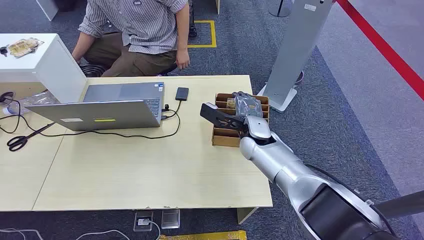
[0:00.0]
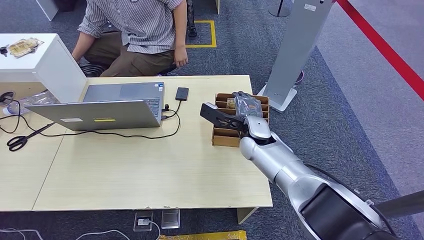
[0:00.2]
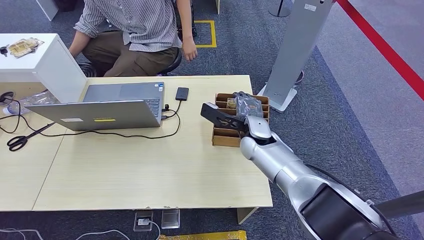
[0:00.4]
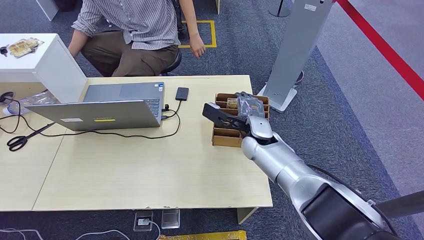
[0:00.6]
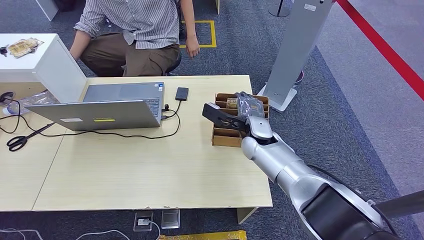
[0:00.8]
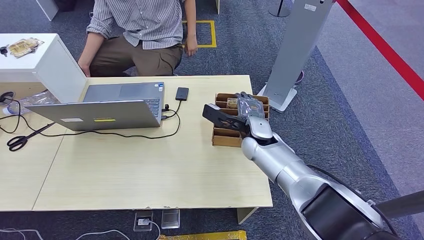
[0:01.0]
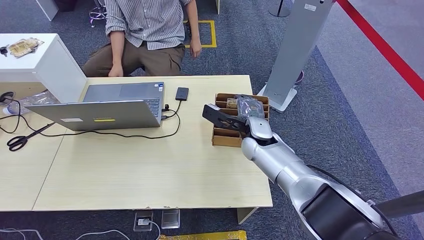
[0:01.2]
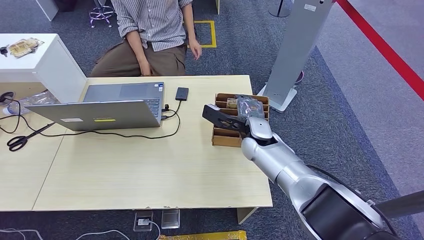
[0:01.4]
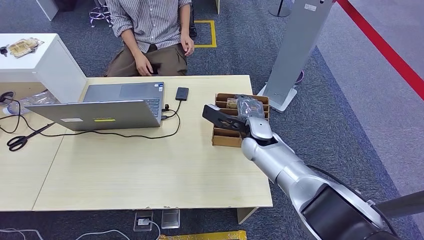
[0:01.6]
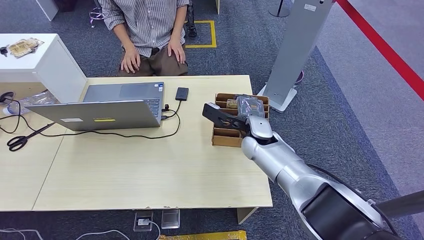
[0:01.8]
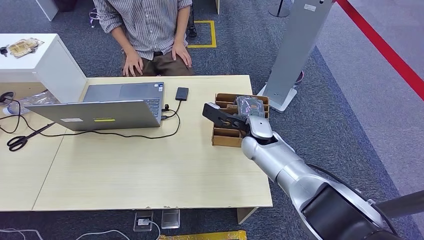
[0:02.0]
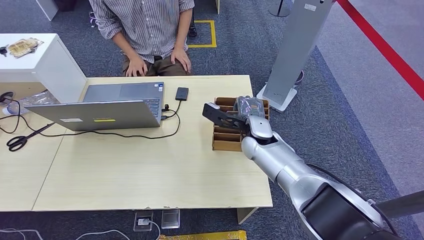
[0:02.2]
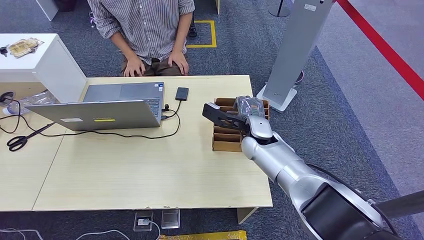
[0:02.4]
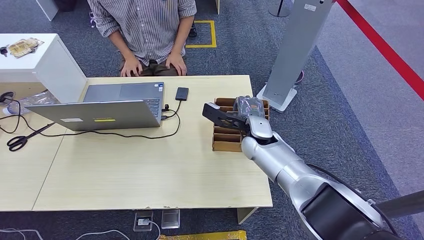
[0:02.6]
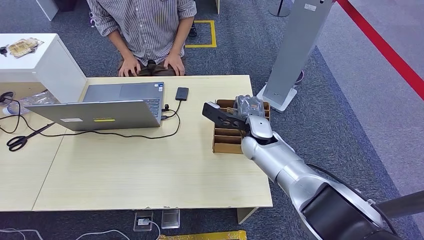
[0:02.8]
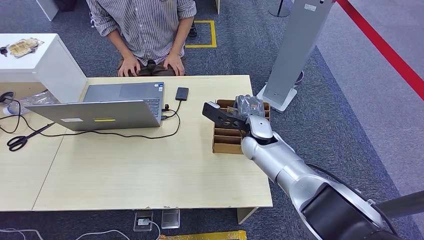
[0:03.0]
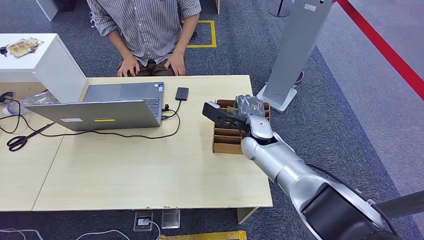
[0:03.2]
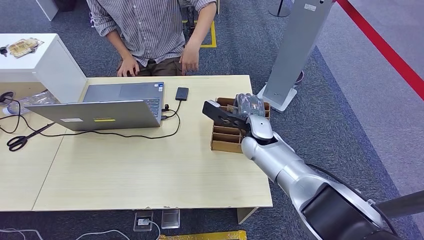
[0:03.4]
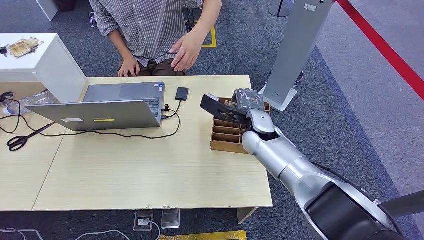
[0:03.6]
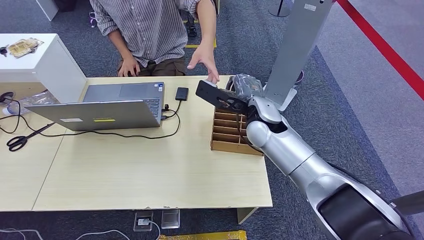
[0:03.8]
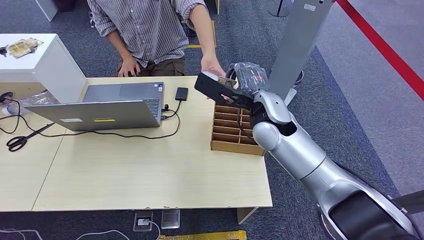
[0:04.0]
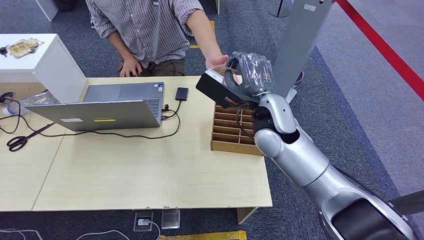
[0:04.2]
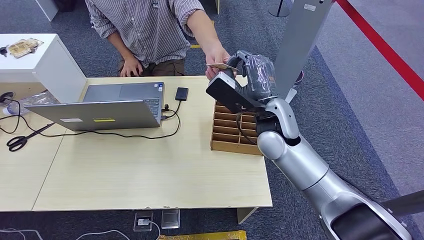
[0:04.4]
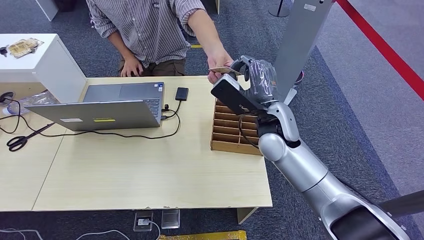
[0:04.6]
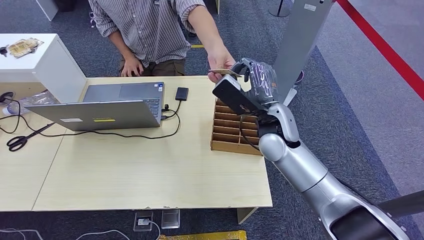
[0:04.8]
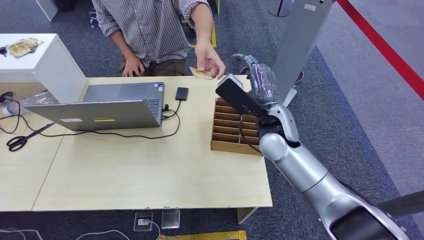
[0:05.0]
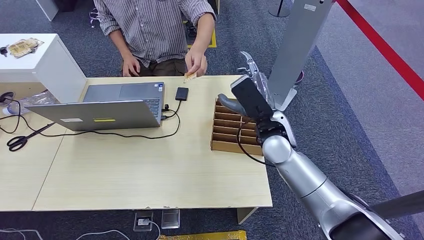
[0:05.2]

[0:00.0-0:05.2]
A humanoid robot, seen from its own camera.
Step, 0:00.0 to 0:03.8: Pick up the key card from the card box.
Step, 0:04.4 to 0:05.2: Hand the key card to the target.
0:01.8 to 0:03.4: The two hands keep their place.
0:03.4 to 0:05.2: The right hand is displaced upward by some 5 cm.
